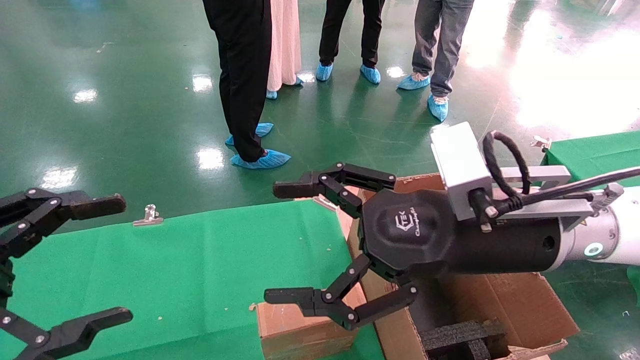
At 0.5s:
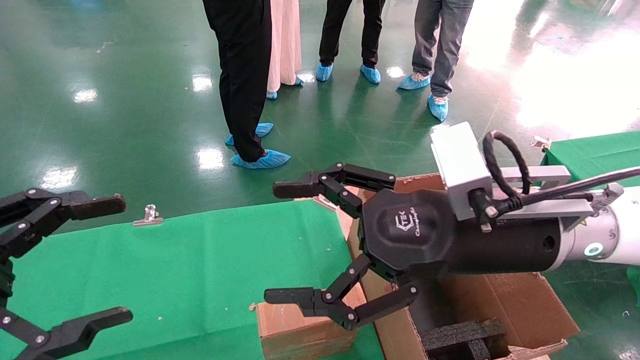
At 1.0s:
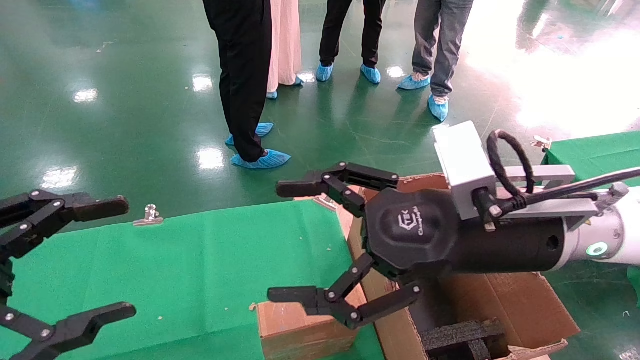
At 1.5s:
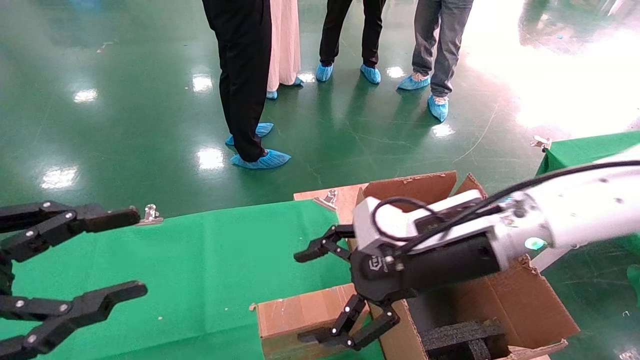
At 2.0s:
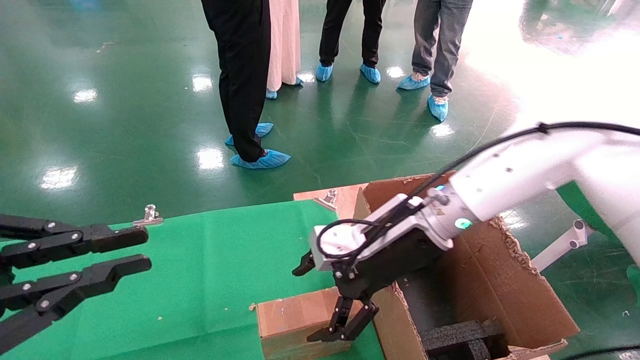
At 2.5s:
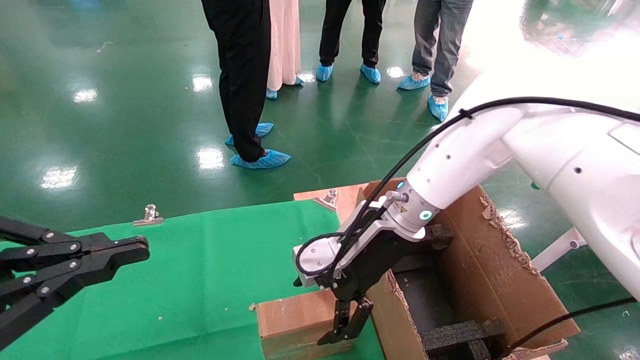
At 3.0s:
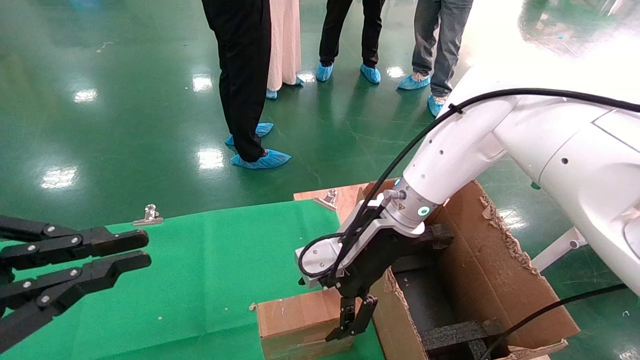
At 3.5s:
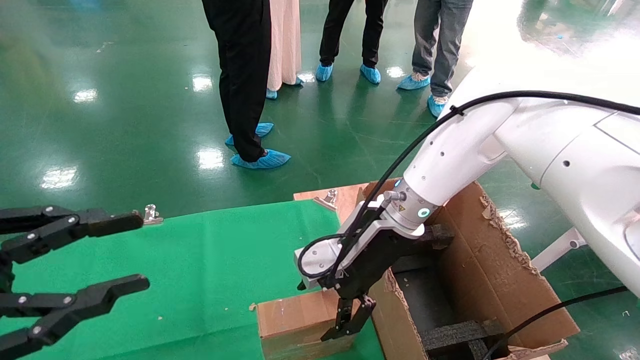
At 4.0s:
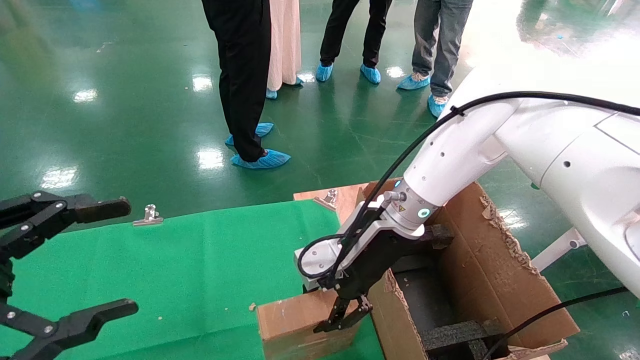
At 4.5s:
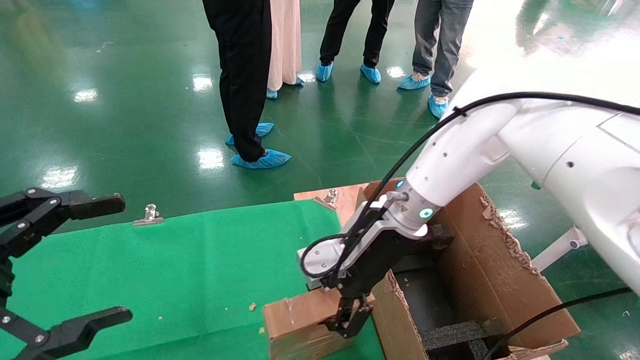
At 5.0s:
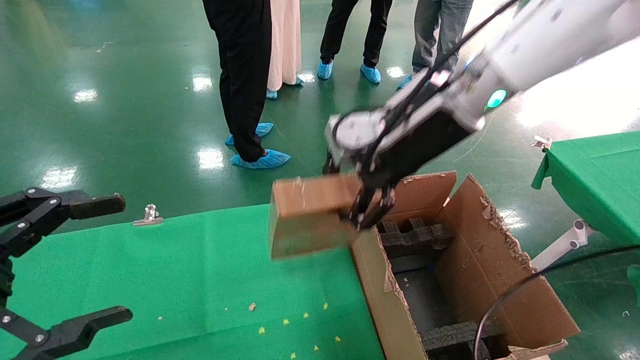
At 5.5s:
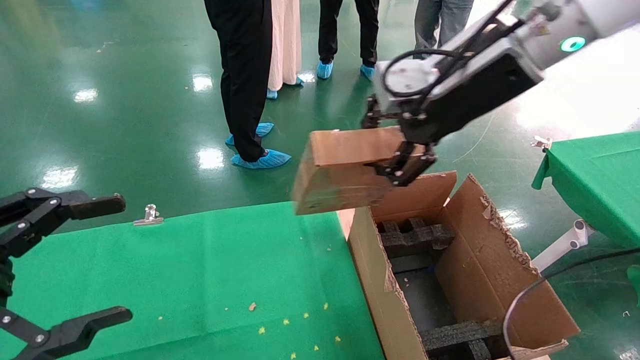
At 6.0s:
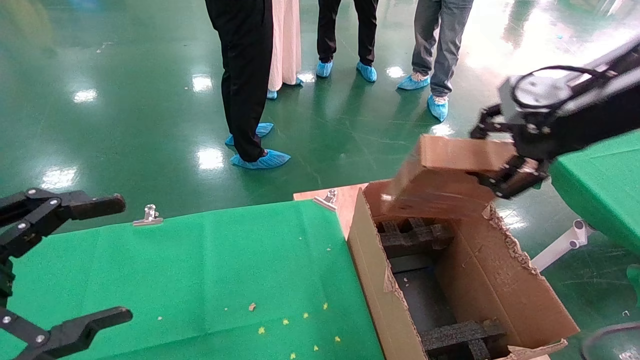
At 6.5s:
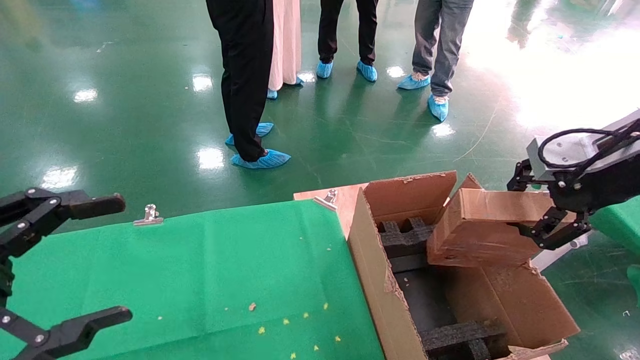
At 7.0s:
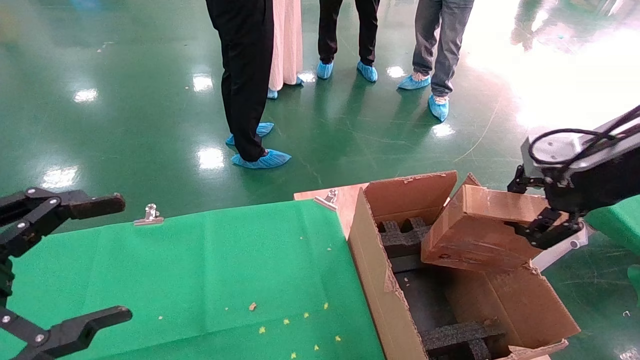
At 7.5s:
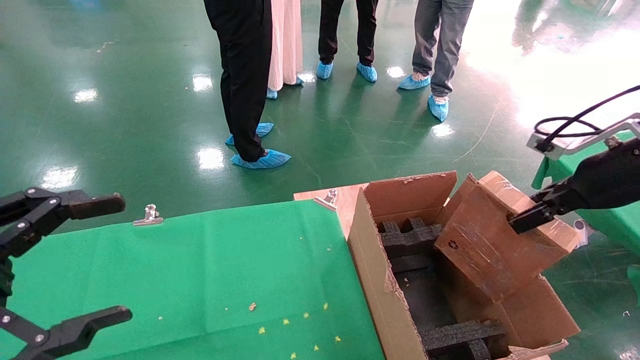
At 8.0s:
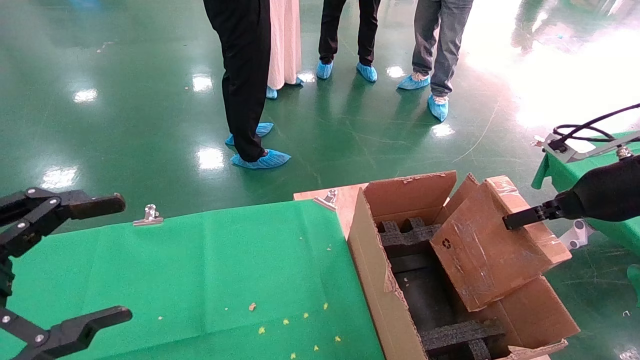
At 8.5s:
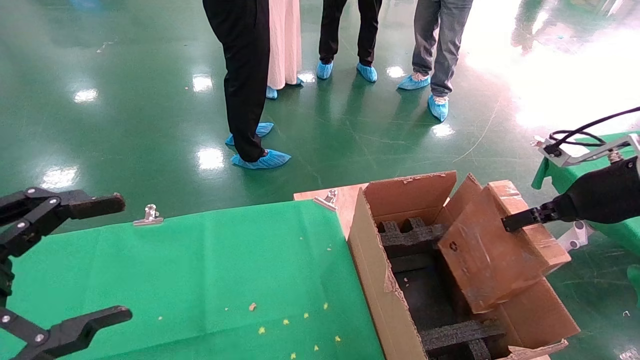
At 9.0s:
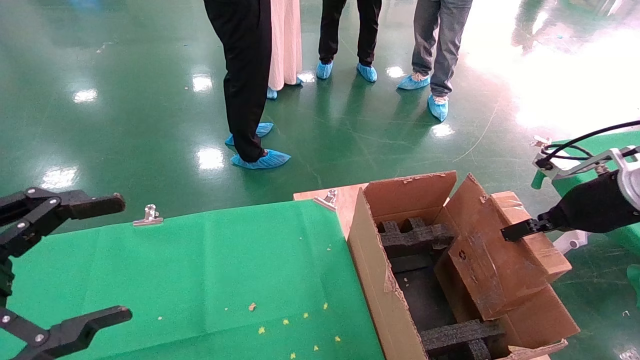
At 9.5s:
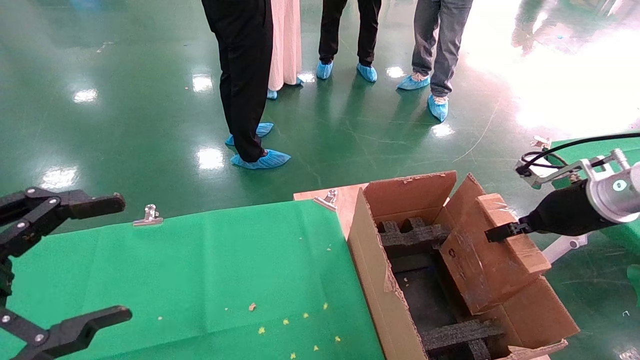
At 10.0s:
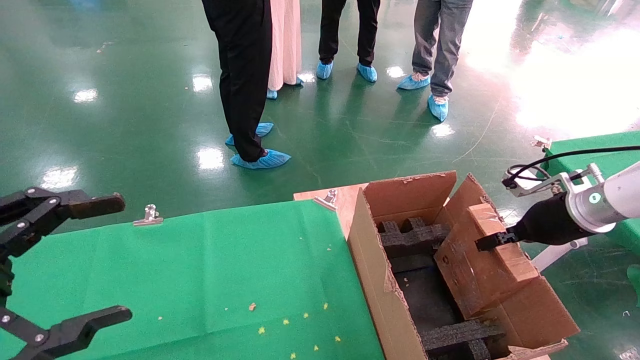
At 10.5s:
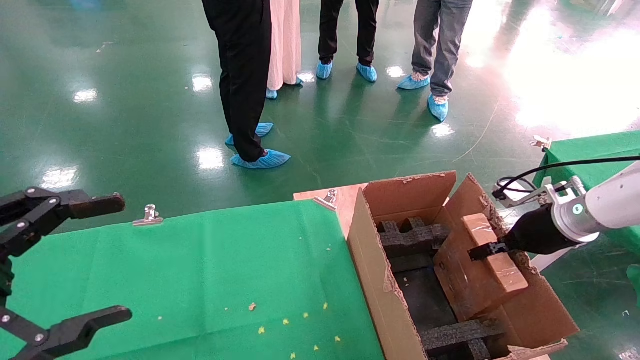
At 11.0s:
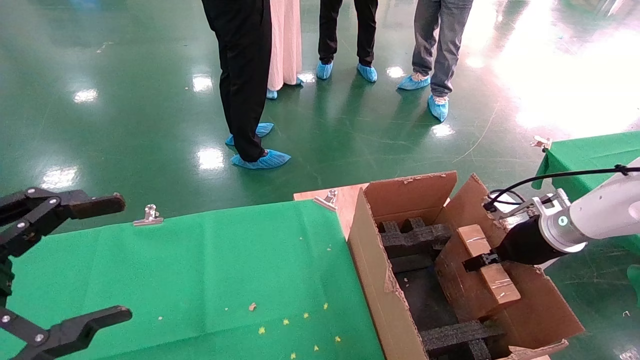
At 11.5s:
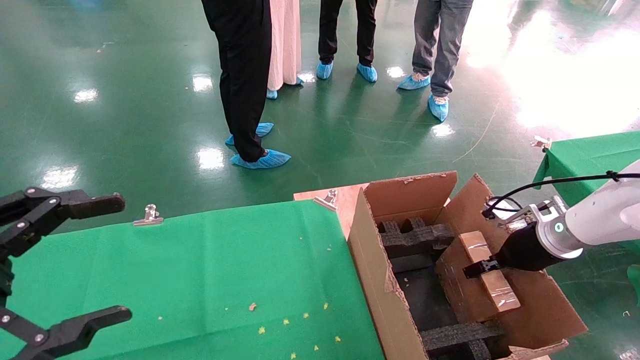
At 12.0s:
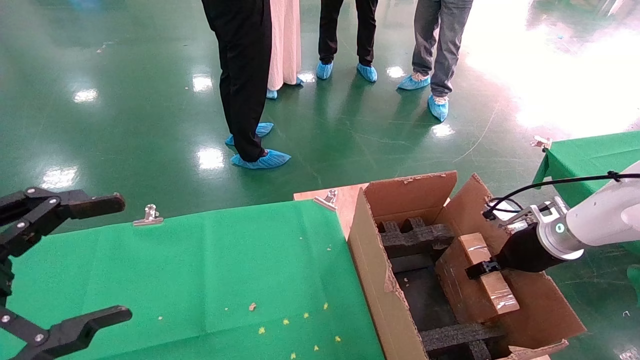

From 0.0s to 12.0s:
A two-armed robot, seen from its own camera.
Task of the whole recording: using a robotic arm to pick up a cardboard box and palace it the carton.
Step, from 1.5s to 4.0s: Pick up the mouse and the power cord paper box.
From 0.0s to 2.0s: The left gripper closes its fingers. The right gripper is displaced forward and downward by some 10 cm.
From 2.0s to 4.0s: The right gripper closes up. Meanwhile the left gripper opens.
From 4.0s to 6.0s: The right gripper travels to the right, upward and backward by approximately 30 cm, and closes its fingers.
From 6.0s to 8.0s: The right gripper goes roughly 15 cm downward and to the right.
From 8.0s to 10.0s: The right gripper goes approximately 10 cm downward and forward.
From 10.0s to 12.0s: The right gripper is displaced downward by approximately 5 cm.

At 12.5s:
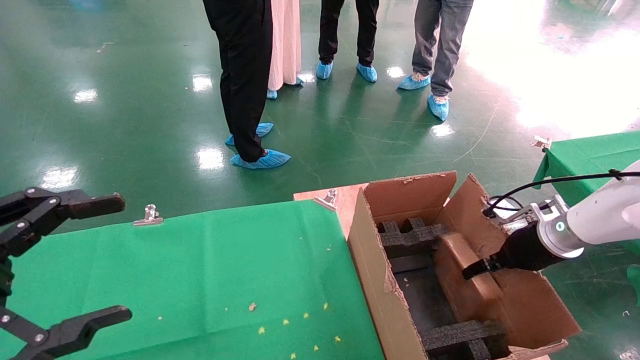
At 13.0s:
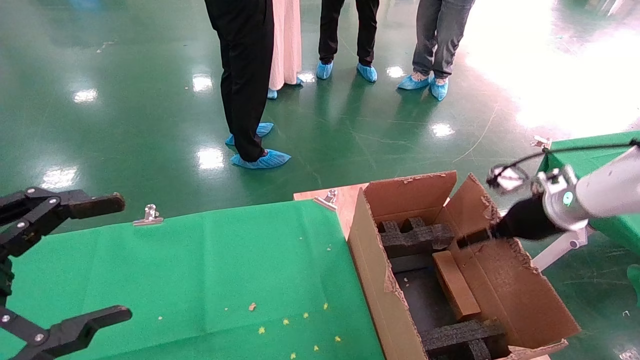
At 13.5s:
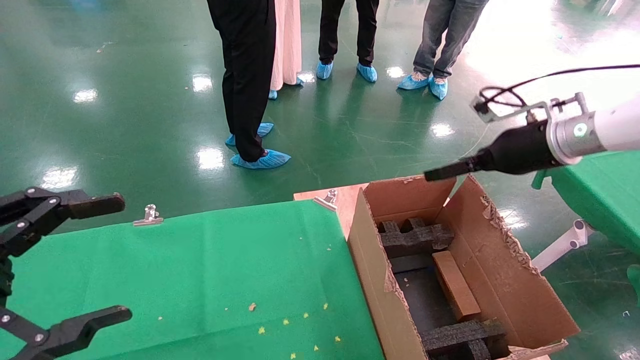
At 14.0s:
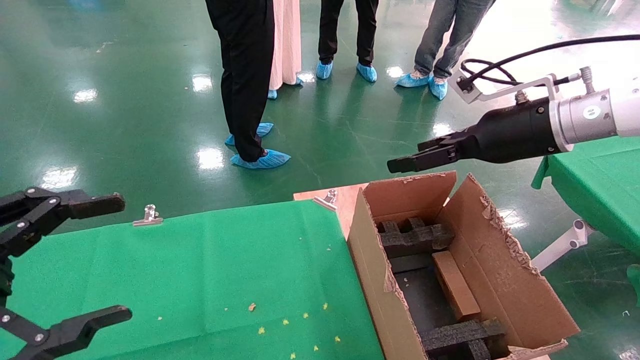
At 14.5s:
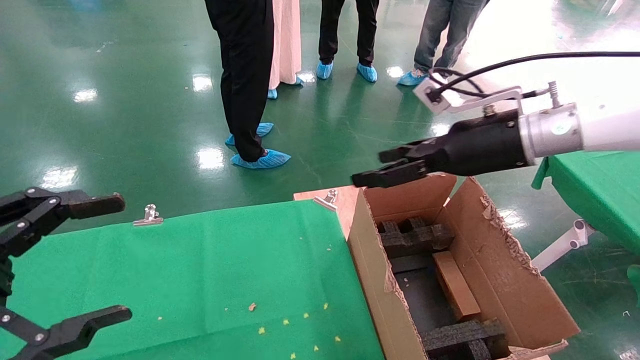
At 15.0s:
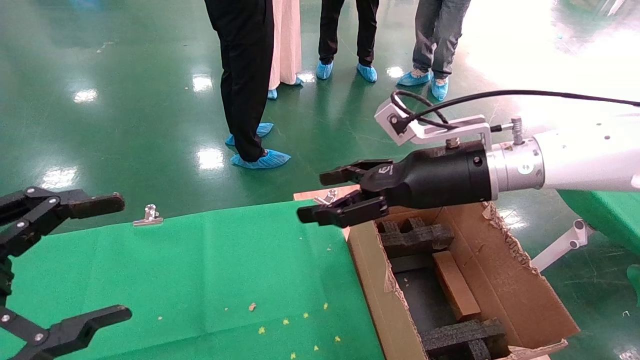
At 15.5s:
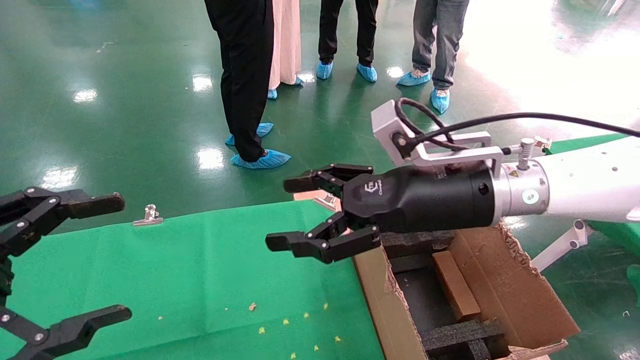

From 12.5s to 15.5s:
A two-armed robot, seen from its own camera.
Task of the whole recording: using a robotic arm to pick up a cardboard box and palace it the carton.
From 12.5s to 14.0s: The right gripper heads upward and to the left, covering roughly 20 cm, and opens.
From 14.0s to 15.5s: The right gripper goes approximately 15 cm to the left and downward.
